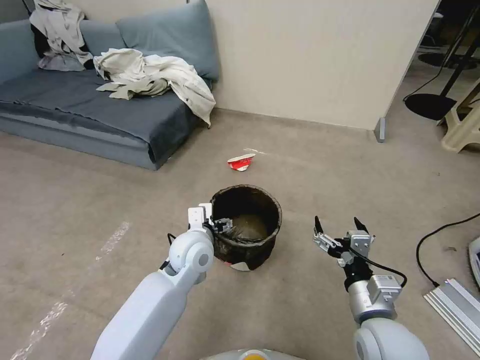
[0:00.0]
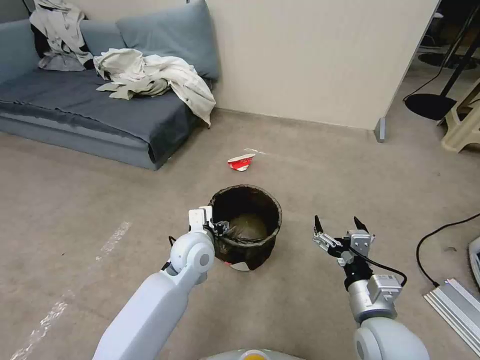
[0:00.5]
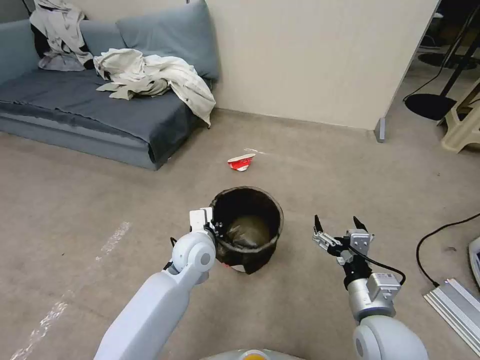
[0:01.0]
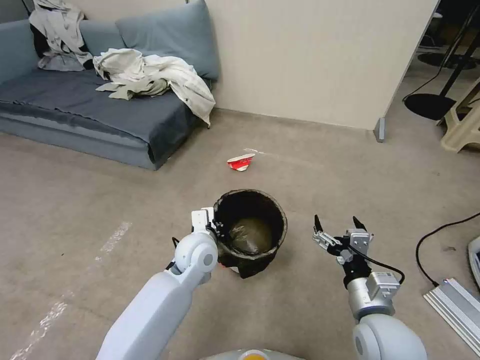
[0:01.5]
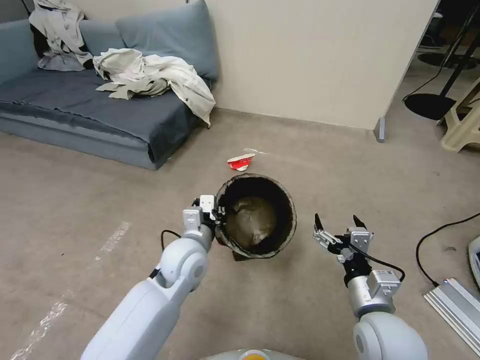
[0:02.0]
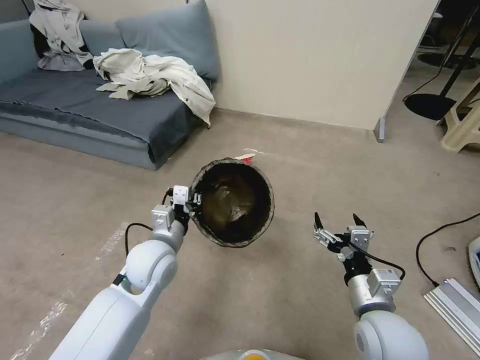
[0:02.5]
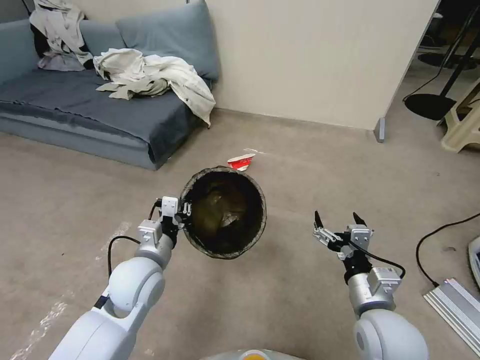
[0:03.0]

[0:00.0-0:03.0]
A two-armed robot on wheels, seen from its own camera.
Task of the whole recording: Pick up the trash can from the floor.
0:00.0 to 0:01.5: The left gripper closes its fingers.
0:01.5 to 0:03.0: The left gripper goes roughly 15 cm to the left and backward.
